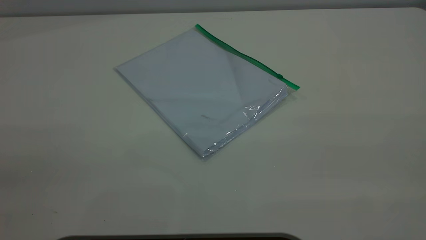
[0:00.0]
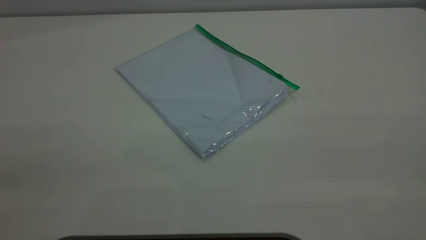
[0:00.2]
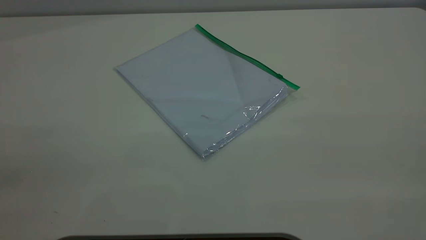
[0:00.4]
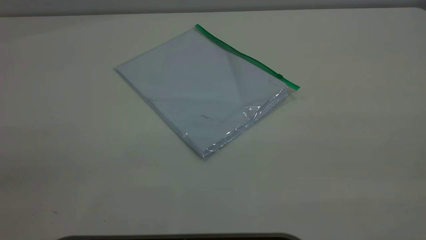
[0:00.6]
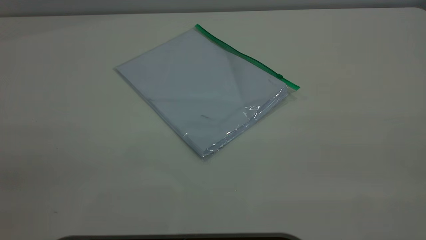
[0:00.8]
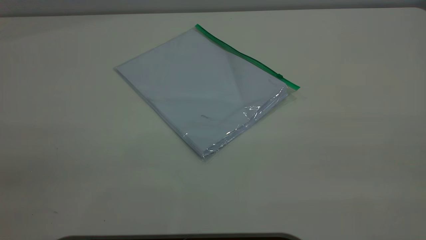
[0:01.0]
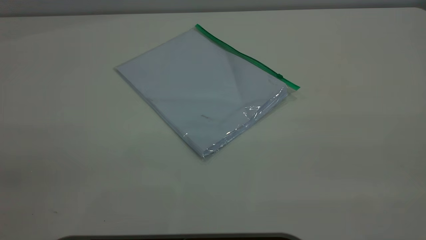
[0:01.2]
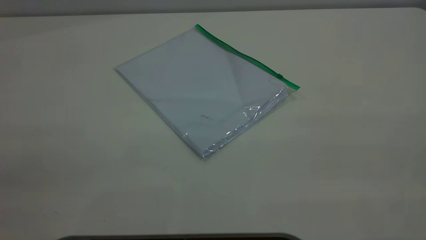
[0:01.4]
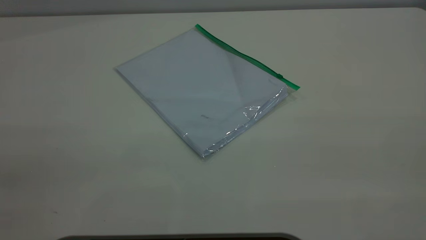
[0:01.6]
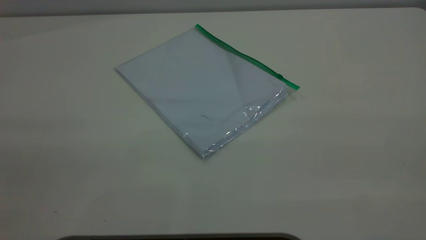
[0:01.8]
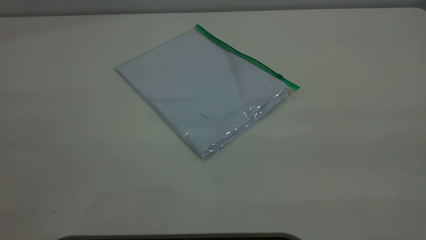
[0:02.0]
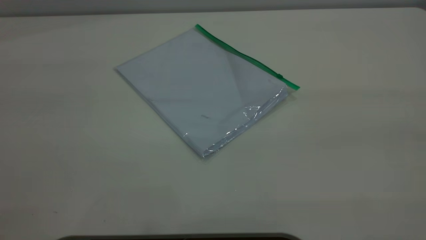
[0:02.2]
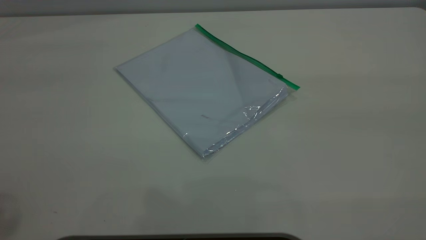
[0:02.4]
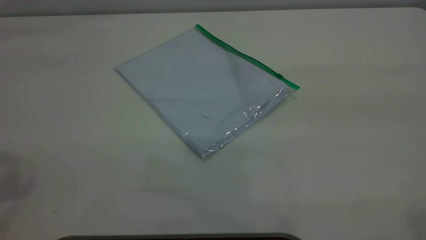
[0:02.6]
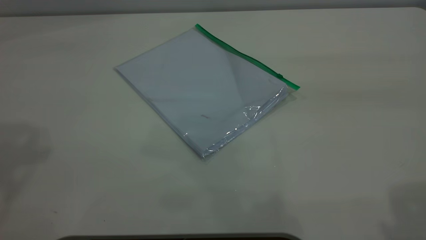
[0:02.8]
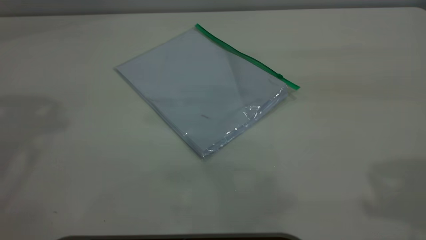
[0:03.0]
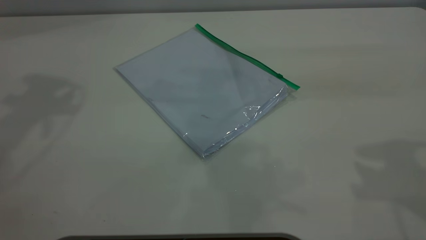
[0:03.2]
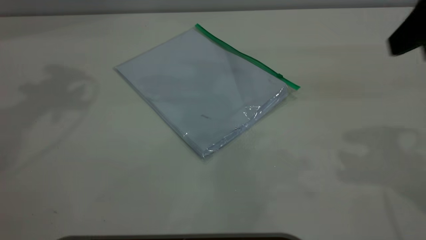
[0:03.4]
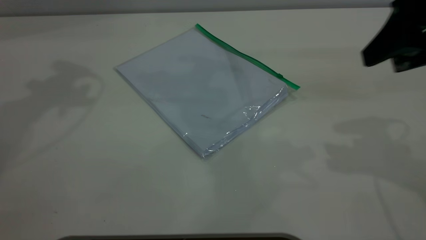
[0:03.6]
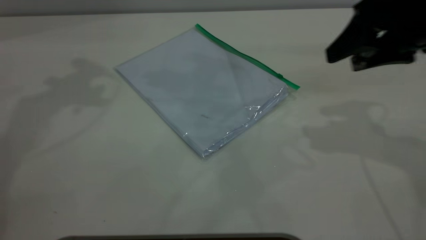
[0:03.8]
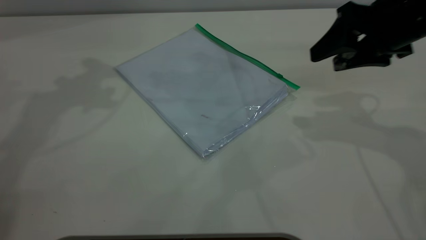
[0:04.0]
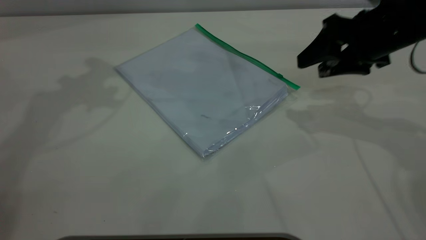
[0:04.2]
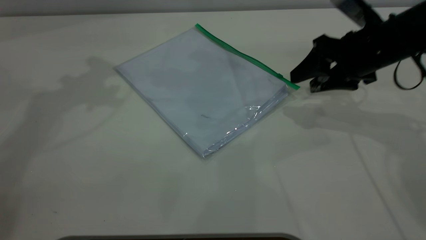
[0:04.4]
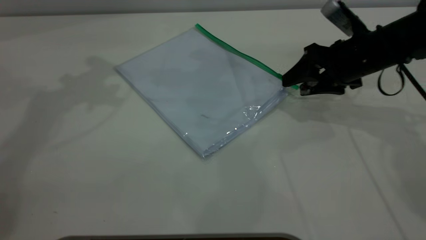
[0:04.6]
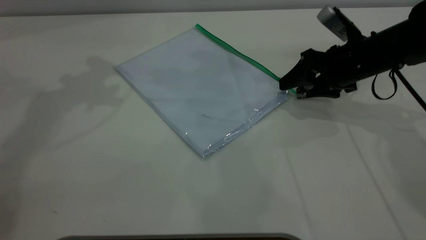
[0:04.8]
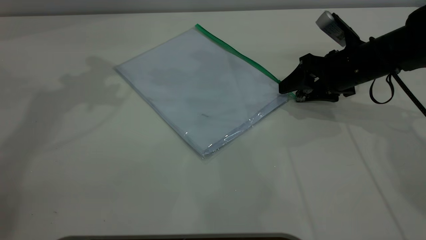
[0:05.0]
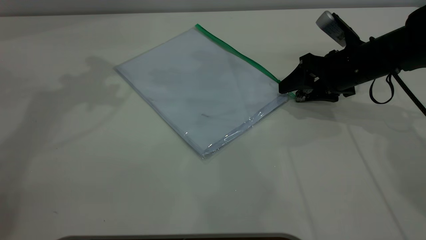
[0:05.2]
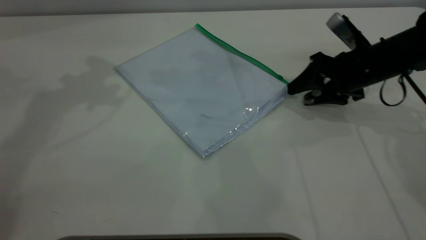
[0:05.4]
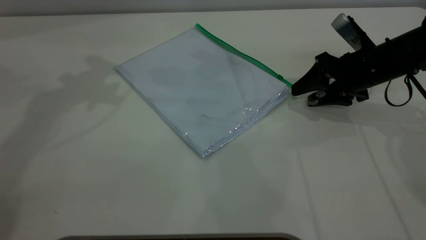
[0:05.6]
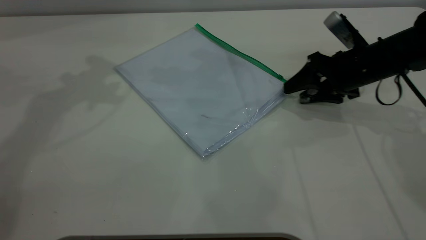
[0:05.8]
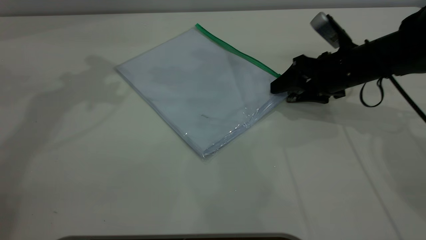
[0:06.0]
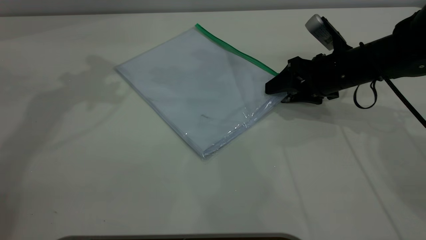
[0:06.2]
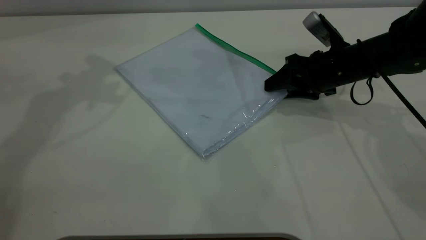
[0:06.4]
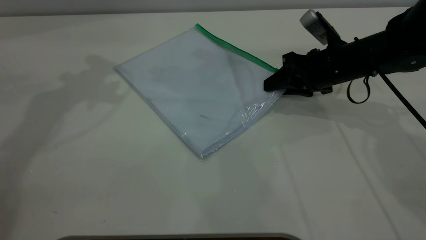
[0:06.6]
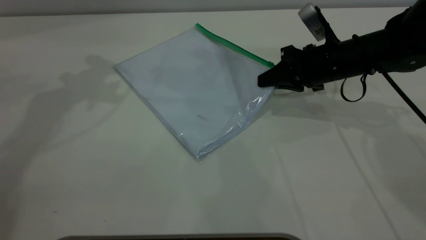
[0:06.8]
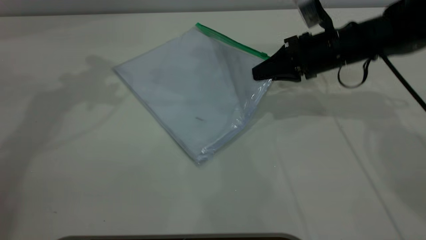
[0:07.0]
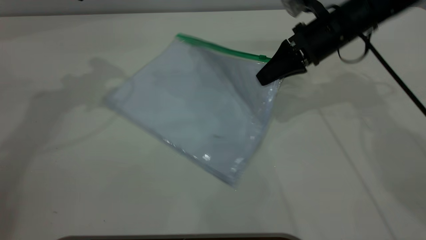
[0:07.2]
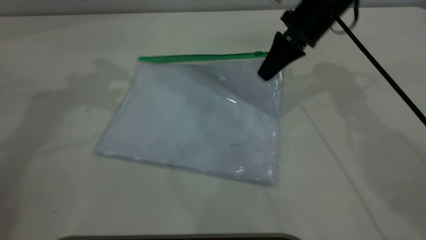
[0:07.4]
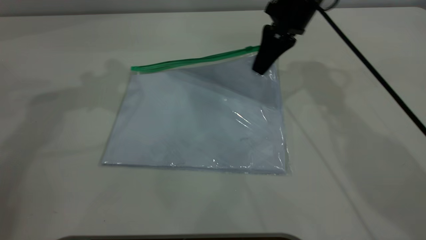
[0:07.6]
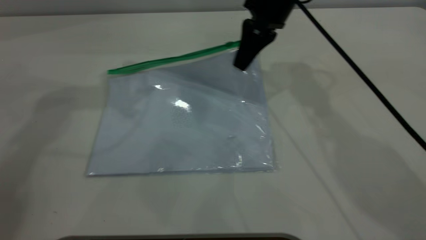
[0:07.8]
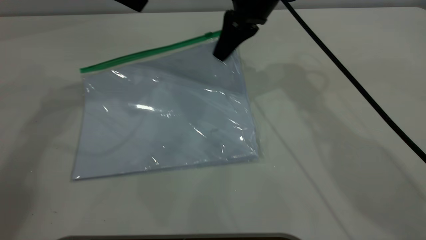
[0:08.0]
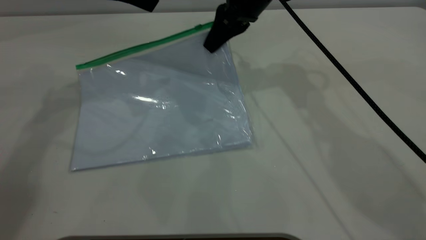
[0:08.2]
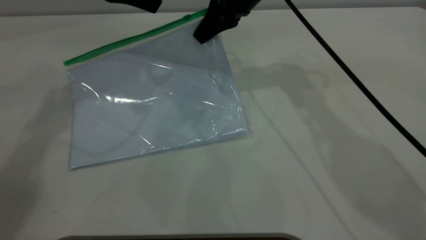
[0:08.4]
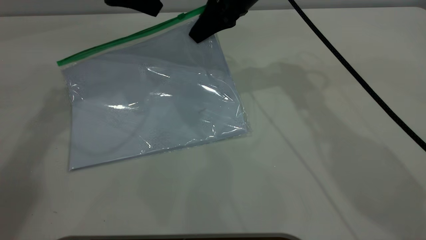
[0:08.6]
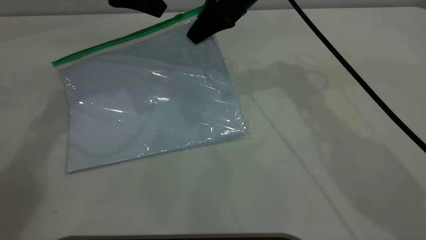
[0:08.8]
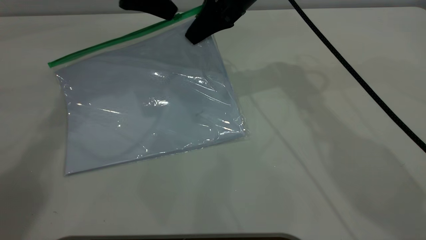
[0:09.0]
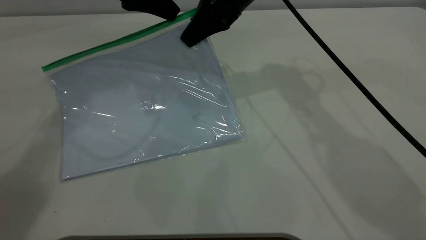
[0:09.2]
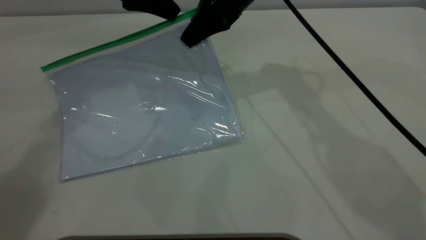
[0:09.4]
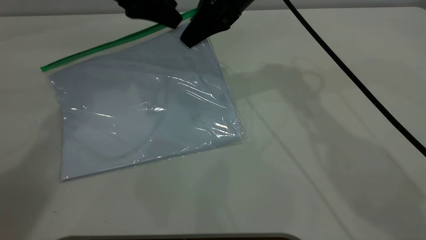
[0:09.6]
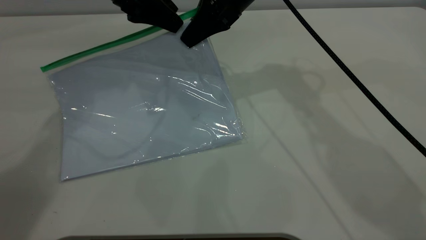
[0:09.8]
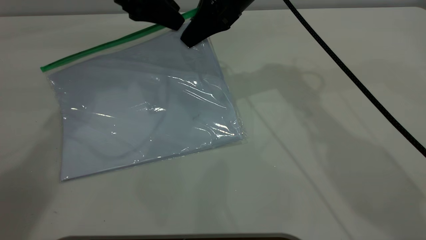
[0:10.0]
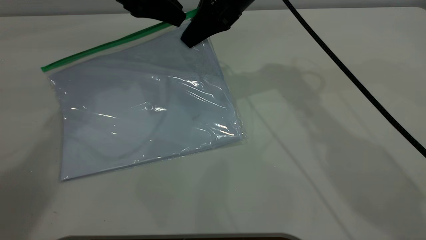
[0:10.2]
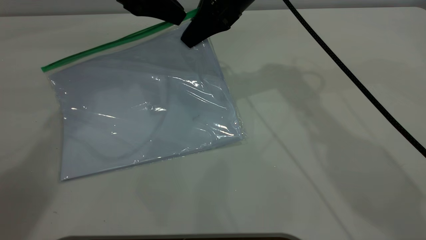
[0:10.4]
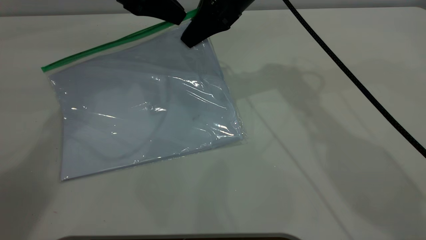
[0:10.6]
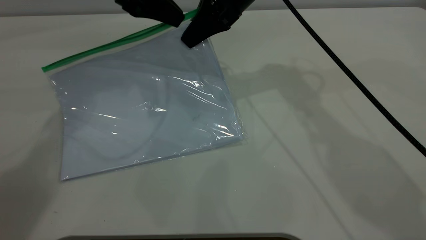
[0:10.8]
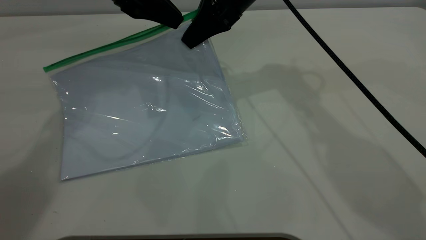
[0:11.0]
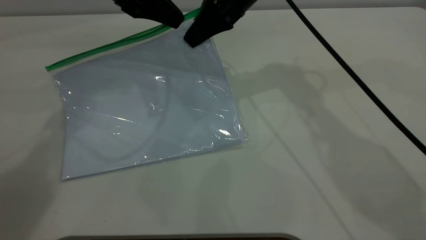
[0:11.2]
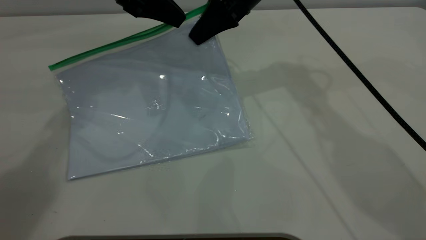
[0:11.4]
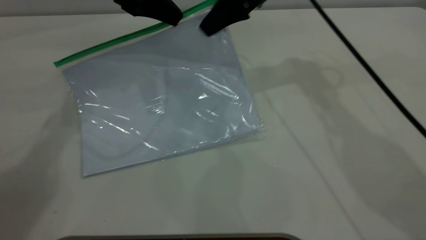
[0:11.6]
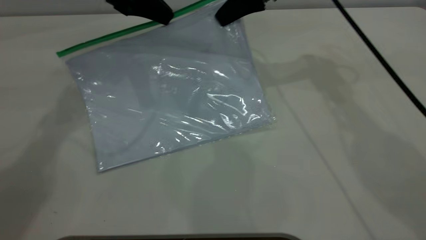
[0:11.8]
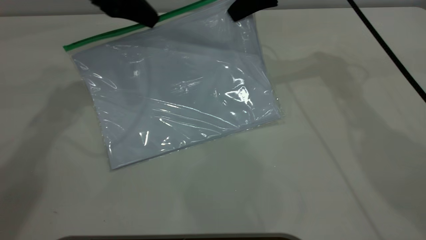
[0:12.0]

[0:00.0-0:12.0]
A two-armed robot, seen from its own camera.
Step, 0:00.0 to 0:08.4: Pick up the transparent plastic bag with the right gripper.
0:00.0 to 0:01.6: Neither gripper changes place.
0:03.0 to 0:04.4: The right gripper moves downward and forward, approximately 30 cm.
0:04.4 to 0:06.0: The right gripper shifts by approximately 5 cm.
0:06.0 to 0:07.6: The right gripper goes roughly 15 cm upward, to the left and forward, and closes up.
0:07.6 to 0:09.0: The left gripper heads downward and to the right, covering some 10 cm; the right gripper heads to the left, covering some 5 cm.
0:09.0 to 0:10.4: The left gripper closes.
0:10.4 to 0:12.0: The right gripper goes about 10 cm to the right.

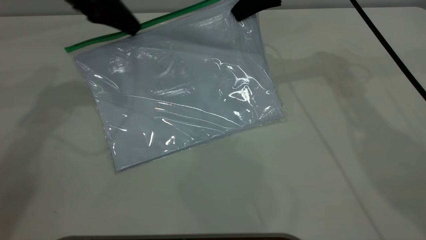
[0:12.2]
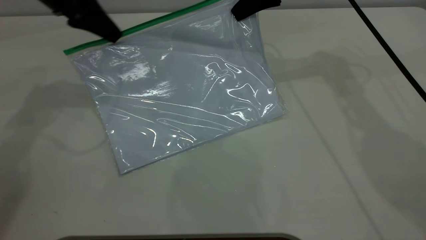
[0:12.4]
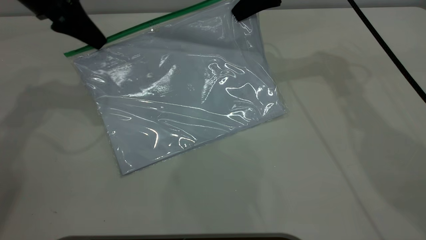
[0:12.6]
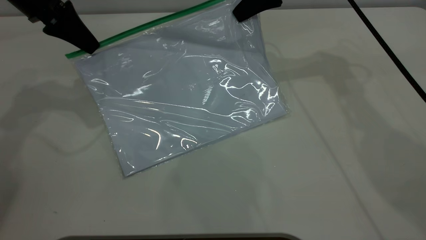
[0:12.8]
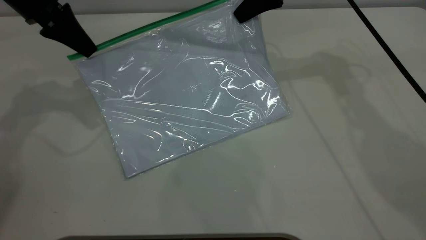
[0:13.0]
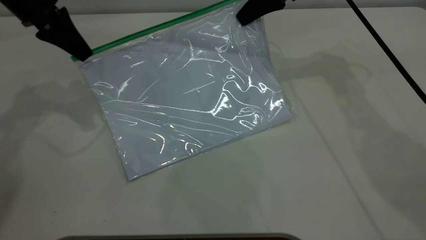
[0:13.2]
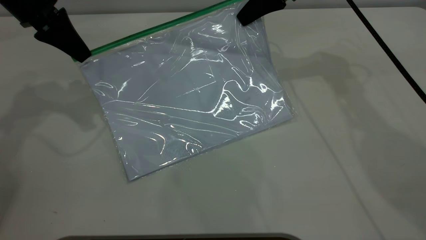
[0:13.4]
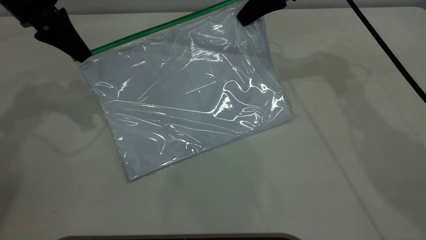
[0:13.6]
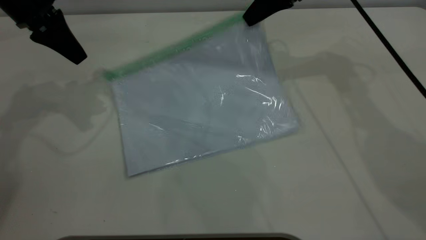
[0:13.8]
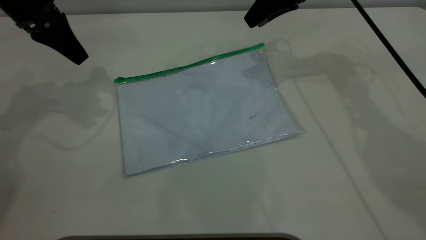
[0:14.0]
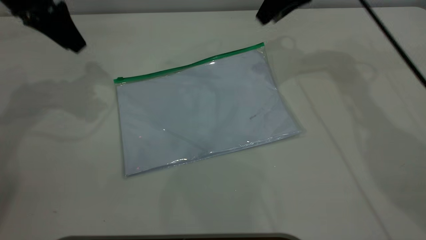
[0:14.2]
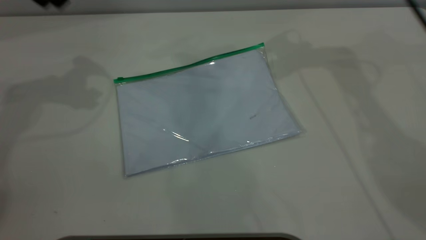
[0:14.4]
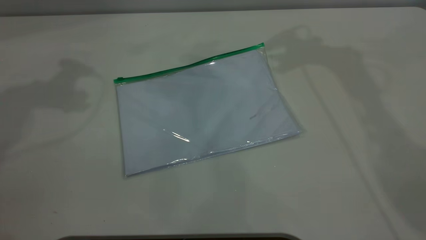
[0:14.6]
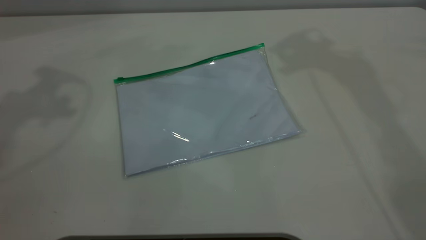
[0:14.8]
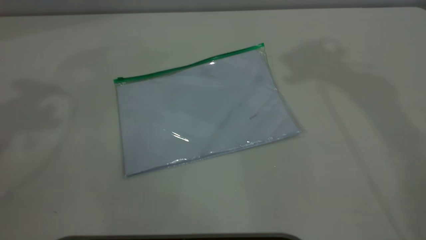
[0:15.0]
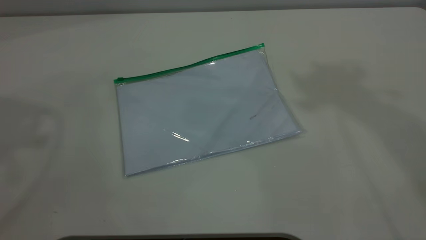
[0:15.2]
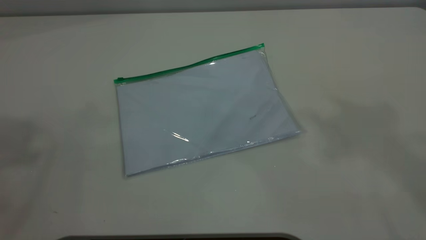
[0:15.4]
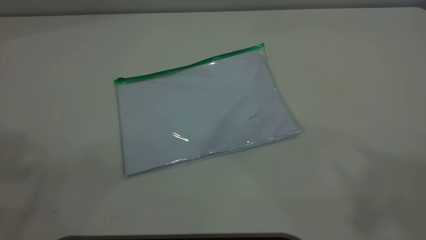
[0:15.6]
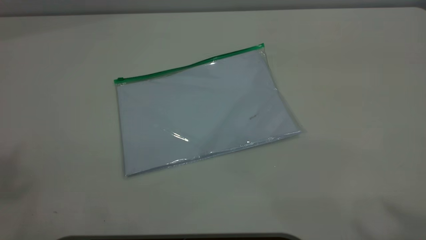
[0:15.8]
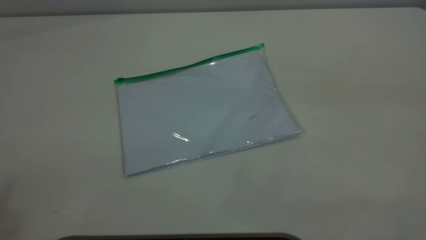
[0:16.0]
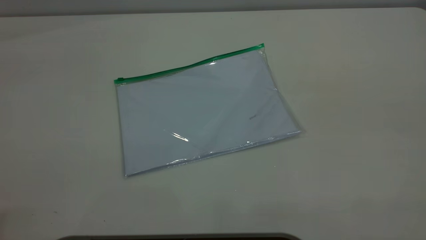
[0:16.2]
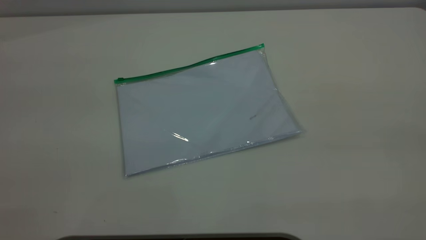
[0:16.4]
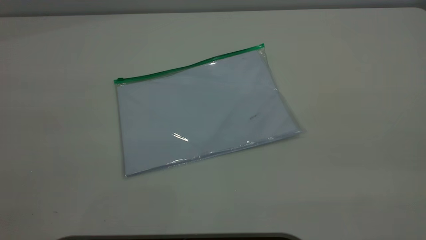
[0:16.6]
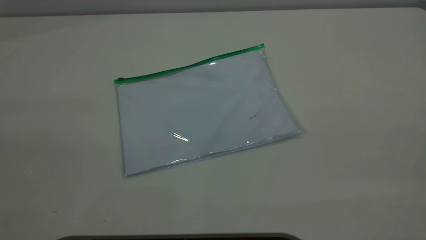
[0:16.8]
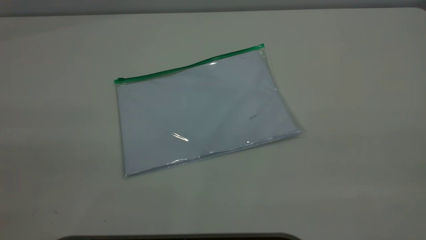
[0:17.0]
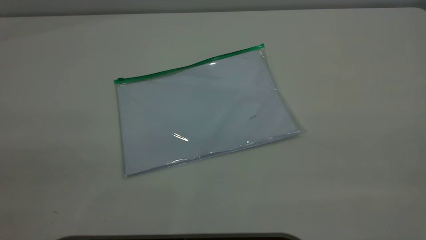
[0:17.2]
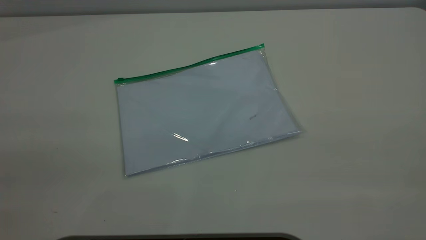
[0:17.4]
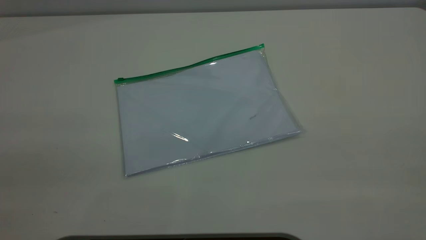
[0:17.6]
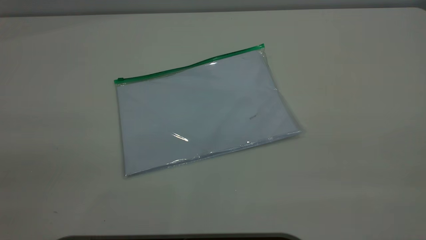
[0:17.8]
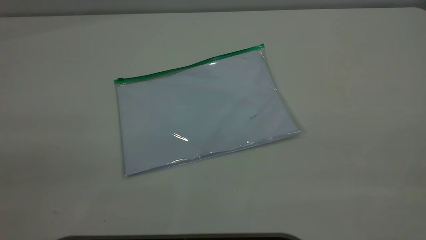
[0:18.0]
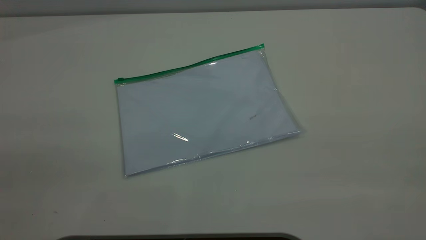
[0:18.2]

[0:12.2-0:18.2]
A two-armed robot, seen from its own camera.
Step, 0:13.8 to 0:15.0: Place the transparent plastic bag.
0:12.2 to 0:13.8: The left gripper moves to the left, some 5 cm, and opens up, while the right gripper opens.
0:13.8 to 0:15.2: The two grippers go about 40 cm upward. The left gripper opens its fingers. Meanwhile the right gripper opens.
